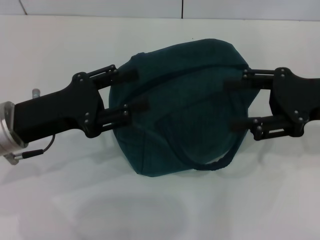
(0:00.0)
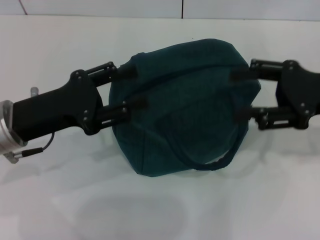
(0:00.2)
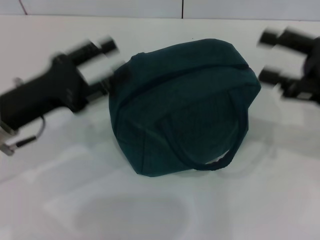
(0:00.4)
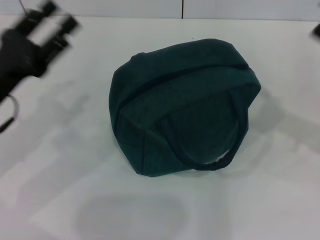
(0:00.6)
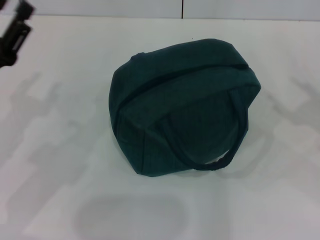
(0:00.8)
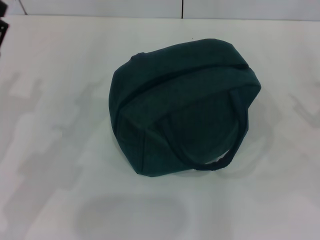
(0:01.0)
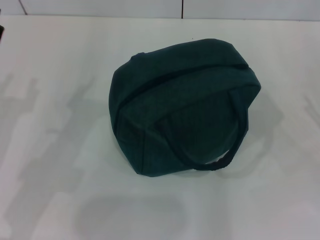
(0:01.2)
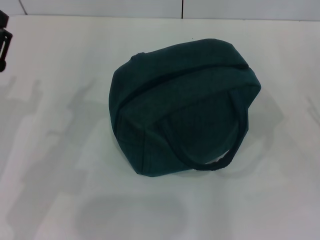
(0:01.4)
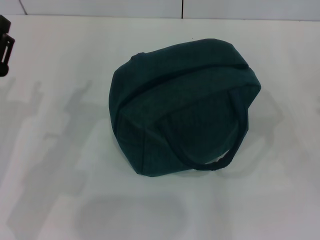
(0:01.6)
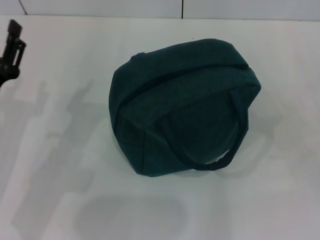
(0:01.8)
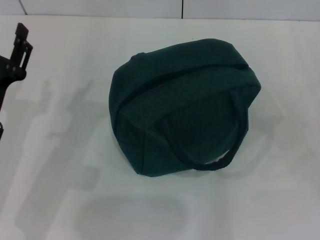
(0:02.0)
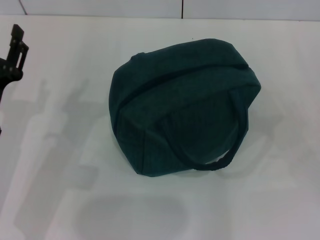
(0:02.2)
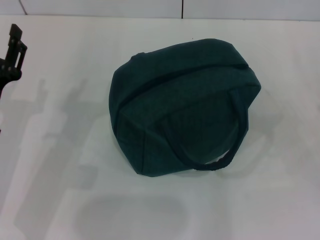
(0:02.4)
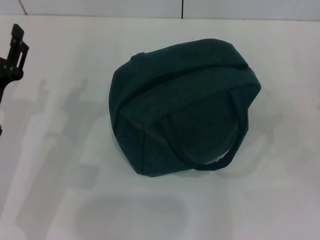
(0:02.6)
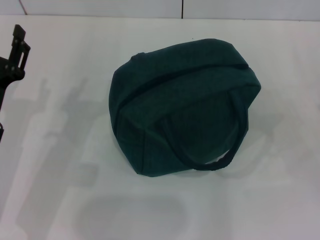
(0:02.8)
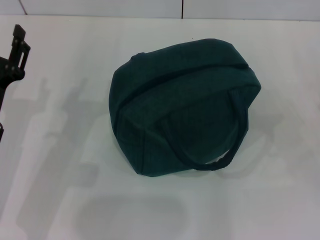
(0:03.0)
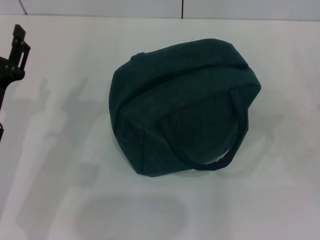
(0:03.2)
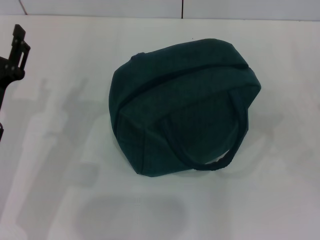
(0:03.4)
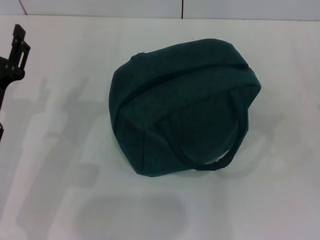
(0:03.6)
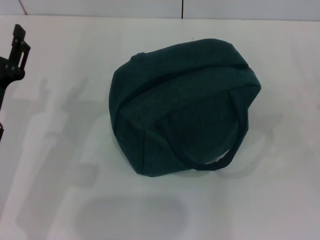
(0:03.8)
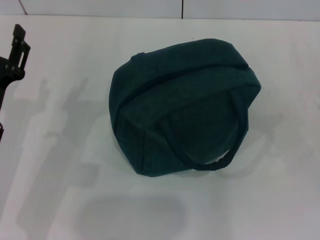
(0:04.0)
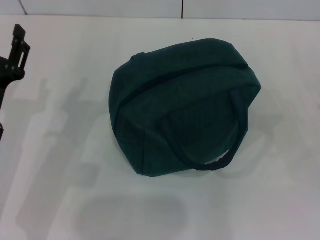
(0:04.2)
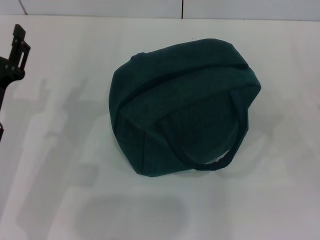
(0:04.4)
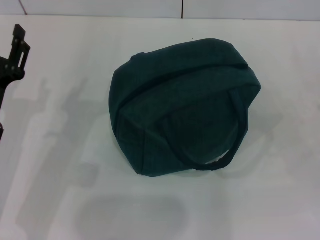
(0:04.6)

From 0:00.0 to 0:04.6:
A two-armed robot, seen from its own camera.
From 0:00.0 to 0:01.6: The left gripper heads downward, covering about 5 cm. The right gripper shifts approximately 15 cm downward, to the right and backward.
From 0:01.6 to 0:03.0: There are only small adjustments of the grippers.
From 0:03.0 to 0:04.6: Neither gripper changes place.
